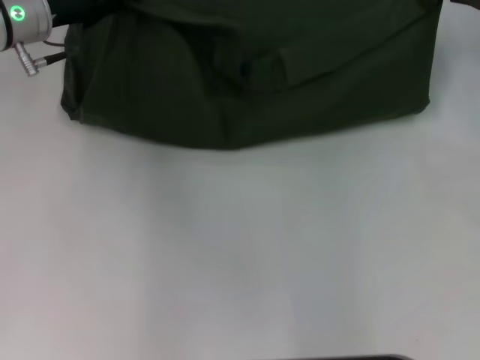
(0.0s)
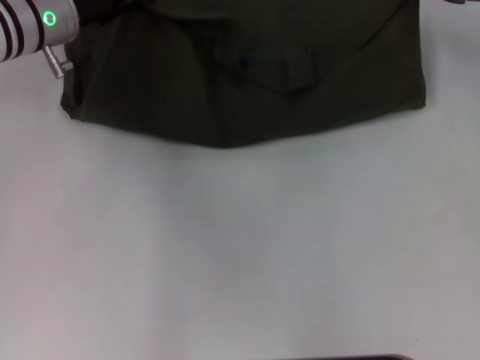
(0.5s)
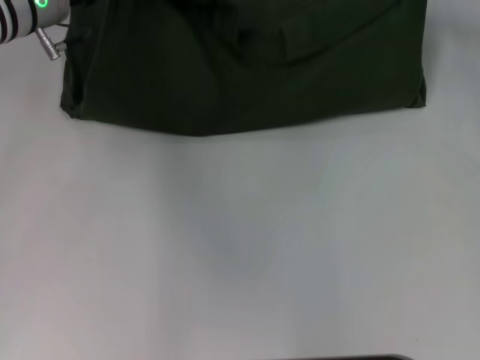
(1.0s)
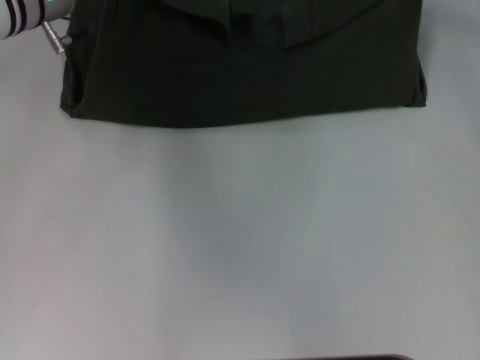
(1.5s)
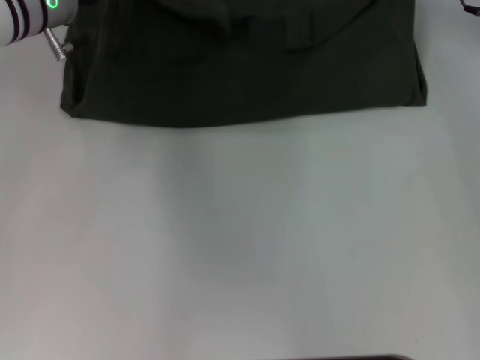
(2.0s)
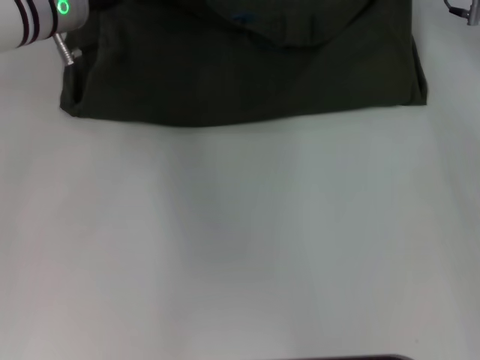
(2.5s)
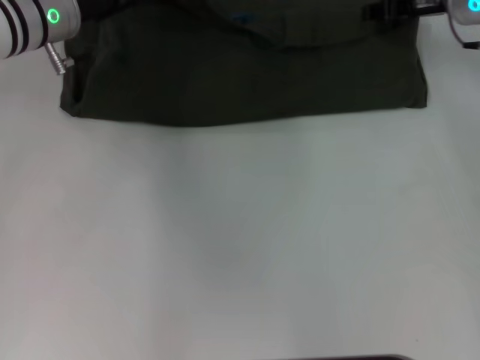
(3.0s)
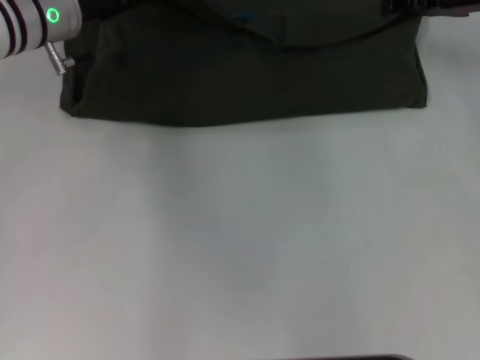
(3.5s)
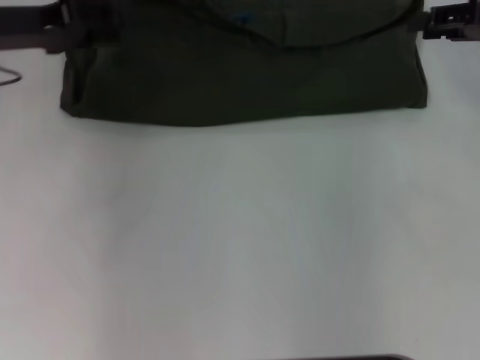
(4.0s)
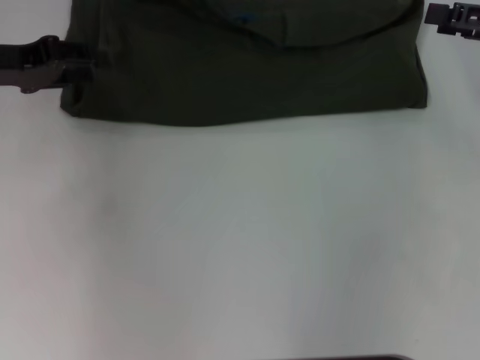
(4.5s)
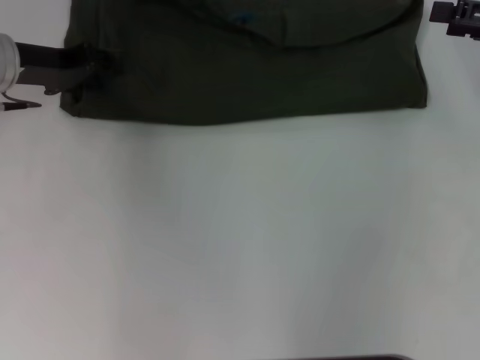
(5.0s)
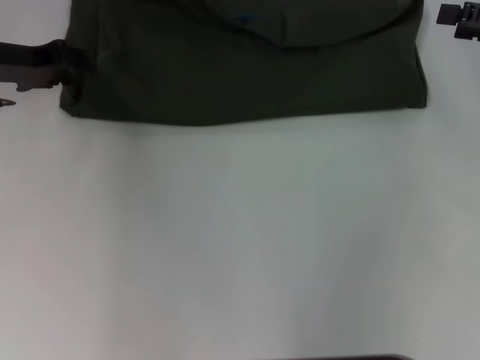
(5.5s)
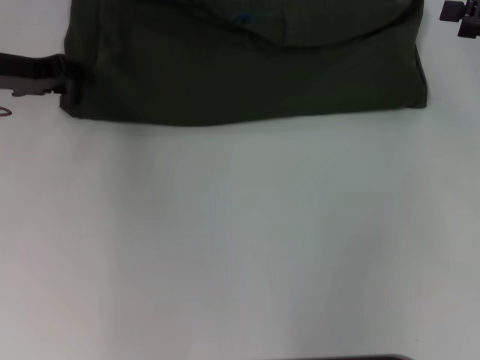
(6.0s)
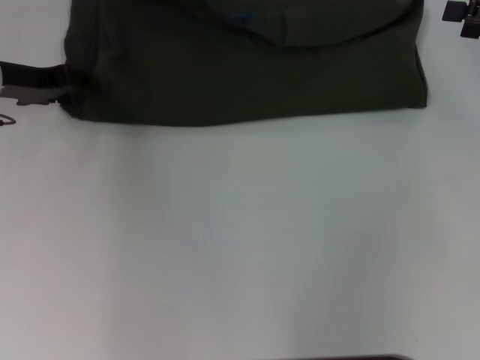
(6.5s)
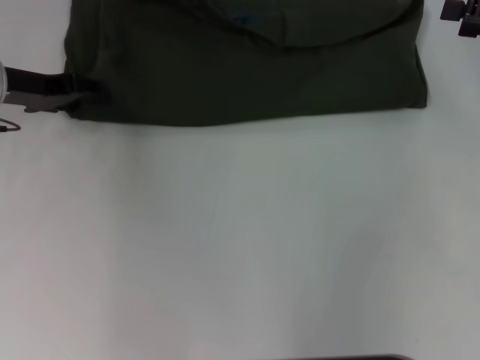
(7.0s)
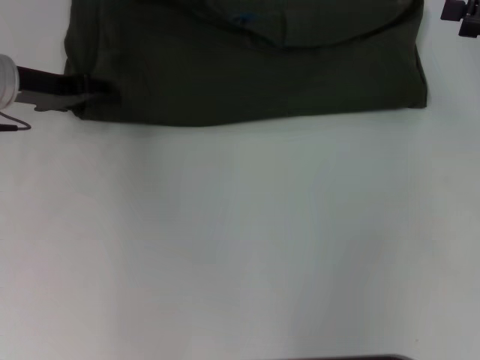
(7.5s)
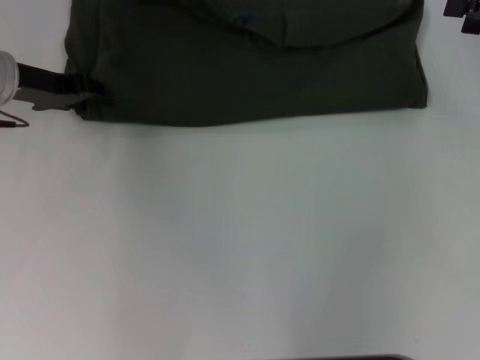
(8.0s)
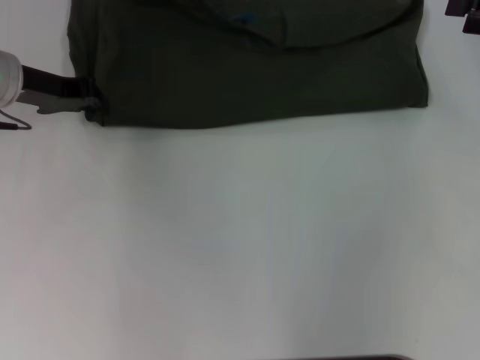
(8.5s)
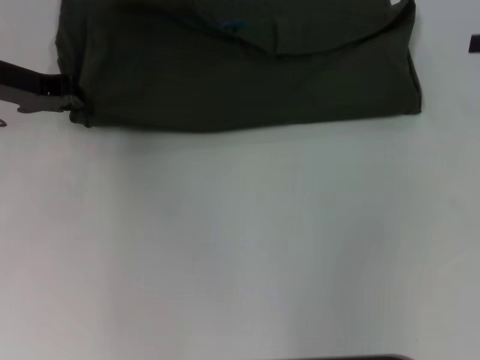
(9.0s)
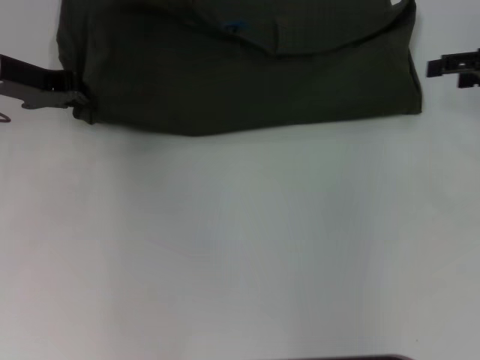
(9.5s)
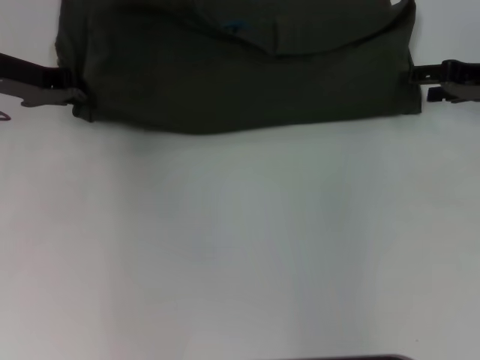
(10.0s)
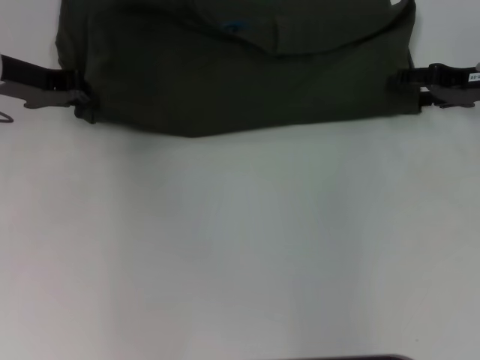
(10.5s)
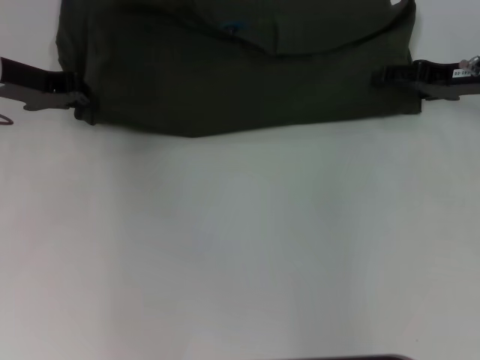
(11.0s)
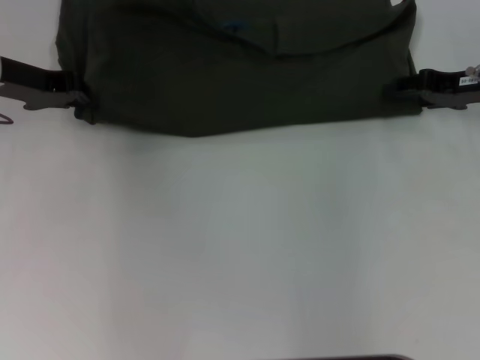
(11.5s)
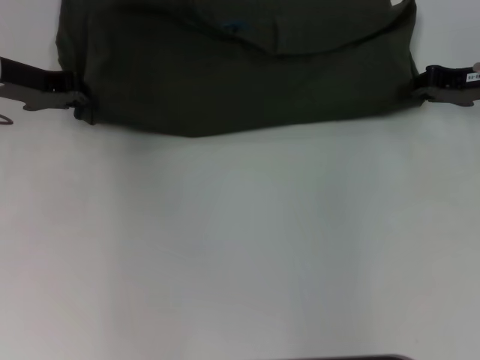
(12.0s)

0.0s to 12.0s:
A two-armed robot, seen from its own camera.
Step, 0.0s to 3.5s: Fold the clothes with your left hand.
Step, 0.0s to 3.5s: Fold the clothes with your right hand.
0.0s to 2.0s: The right gripper heads to the left and forward, covering about 10 cm.
2.0s to 4.0s: The right gripper travels backward and to the right by roughly 15 cm, and opens up, while the left gripper is displaced to the left and backward by approximately 10 cm, and opens.
4.0s to 6.0s: The left gripper moves about 5 cm; the right gripper opens up.
6.0s to 8.0s: The grippers make only small movements.
8.0s to 10.0s: The right gripper goes approximately 5 cm downward. Meanwhile the left gripper closes up.
10.0s to 12.0s: The right gripper closes.

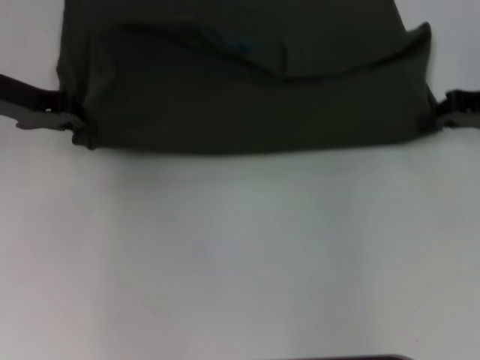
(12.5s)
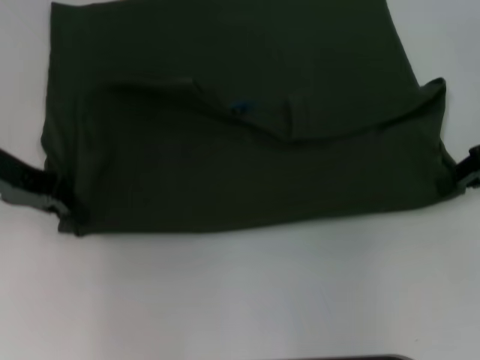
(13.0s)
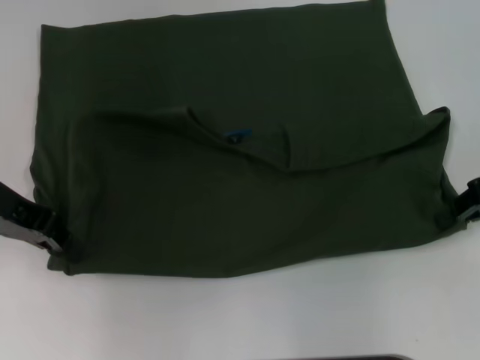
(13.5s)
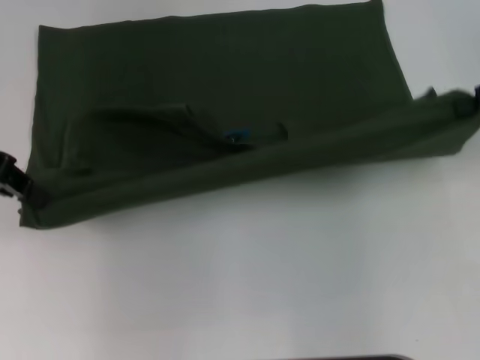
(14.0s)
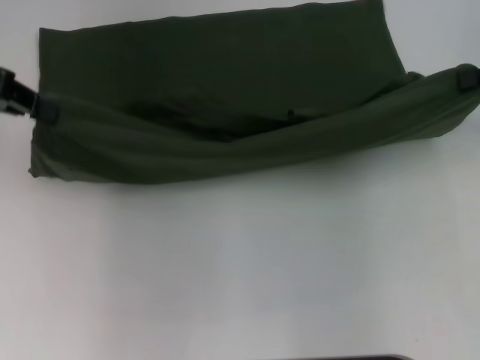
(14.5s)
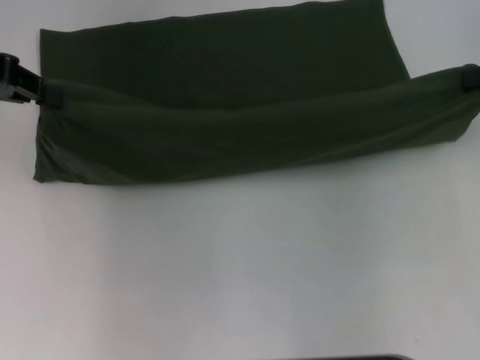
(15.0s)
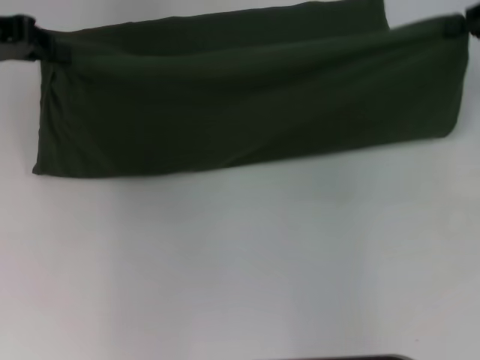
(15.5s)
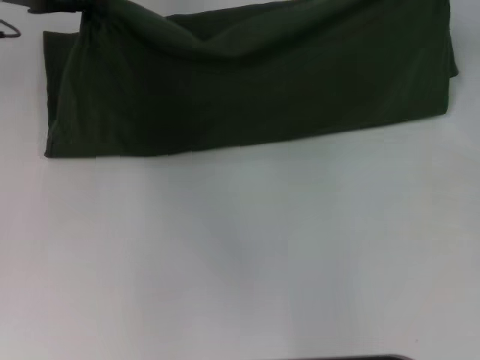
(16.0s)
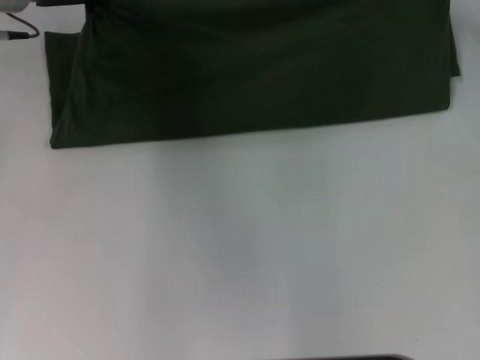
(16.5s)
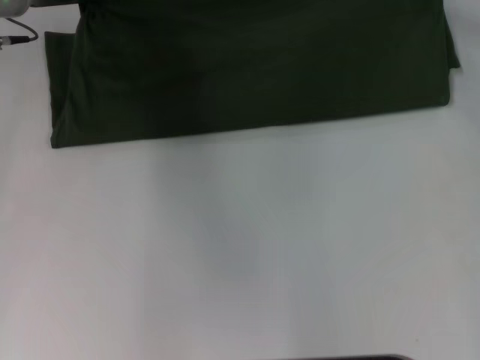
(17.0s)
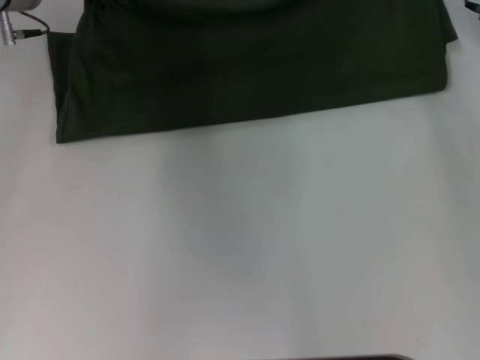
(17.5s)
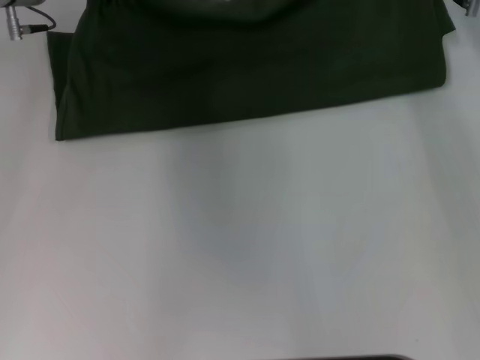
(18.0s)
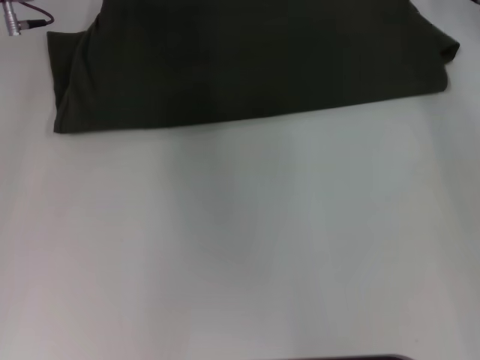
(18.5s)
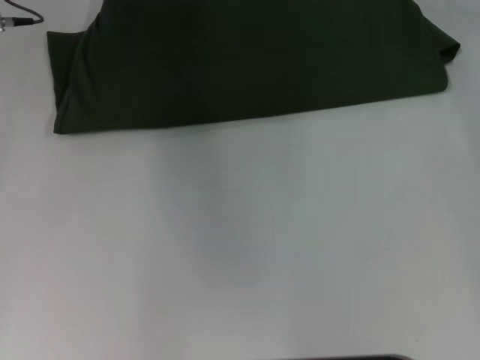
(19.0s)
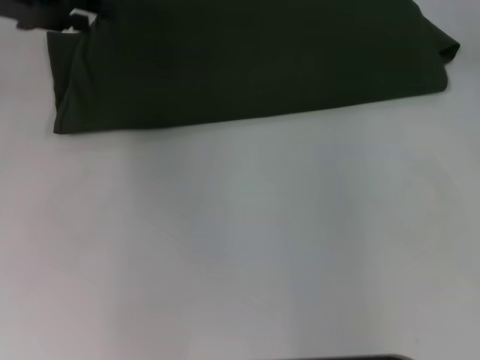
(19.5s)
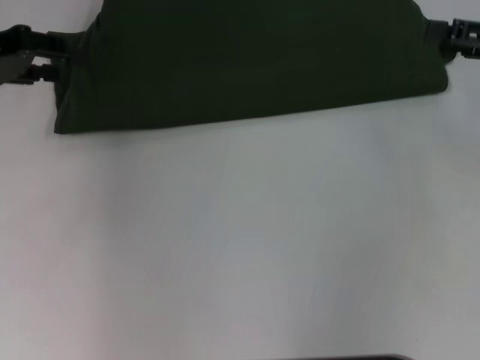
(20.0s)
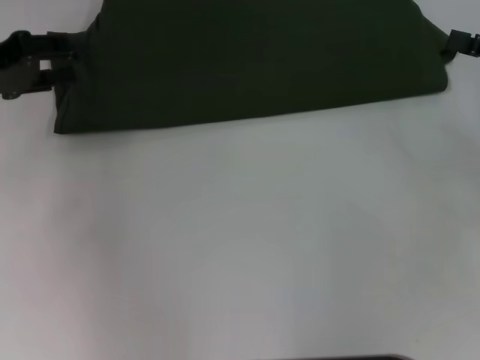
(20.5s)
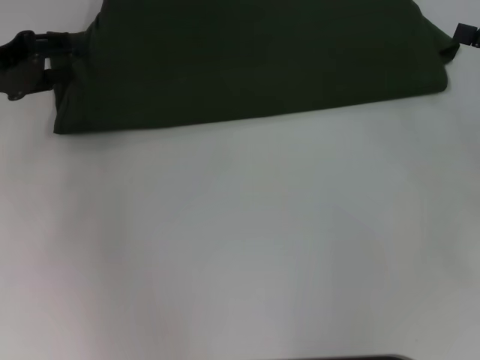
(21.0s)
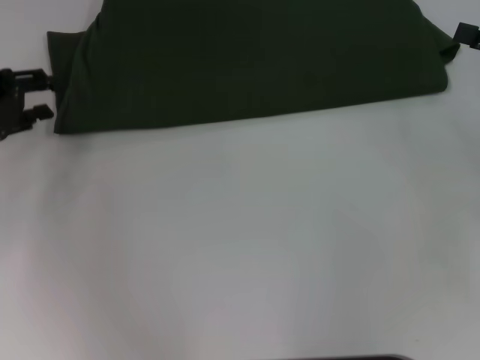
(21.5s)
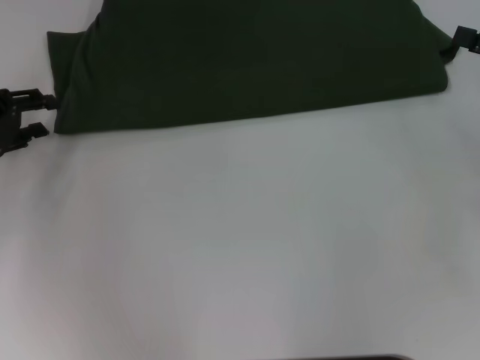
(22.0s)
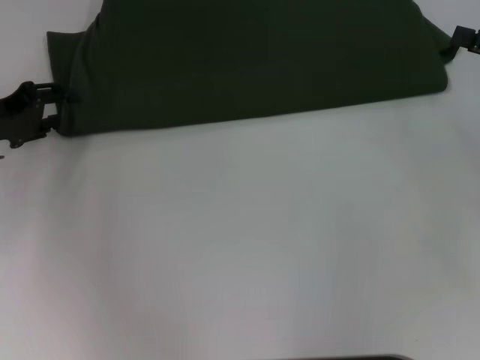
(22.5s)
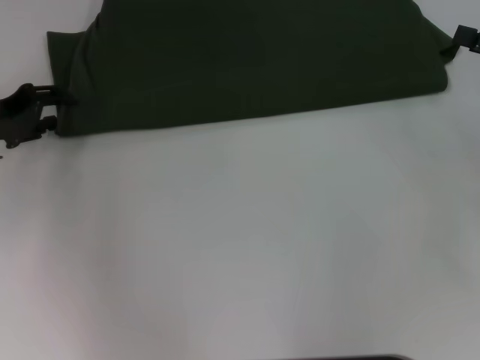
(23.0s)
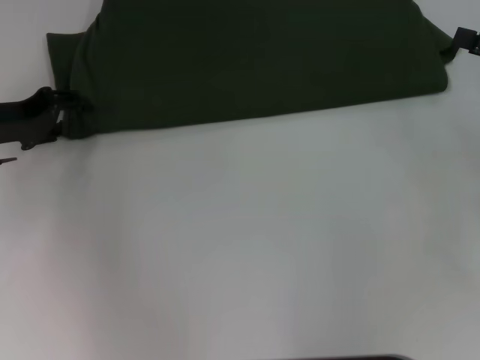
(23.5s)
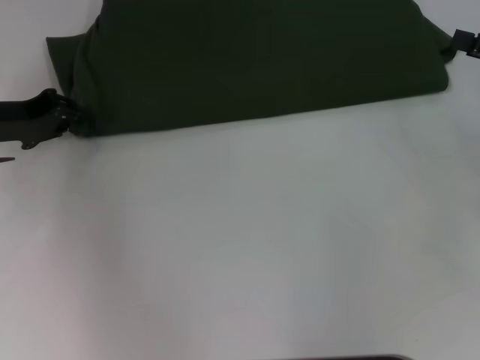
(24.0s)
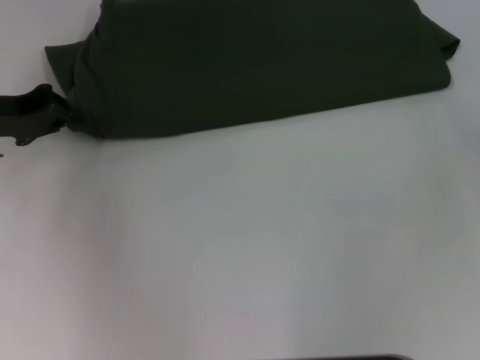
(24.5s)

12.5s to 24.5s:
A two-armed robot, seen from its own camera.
Step, 13.5s to 19.0s: Fold the clothes with your left hand.
Step, 13.5s to 19.0s: Fold the clothes with your right hand.
12.5s to 14.5s: The grippers both shift upward by roughly 10 cm.
14.5s to 16.5s: The left gripper travels forward, to the right and downward by about 15 cm. The right gripper moves forward and downward, approximately 10 cm.
16.5s to 18.5s: The right gripper is displaced to the left by roughly 5 cm.
18.5s to 20.5s: The left gripper heads backward and to the left, covering some 15 cm, and opens; the right gripper is displaced backward and to the right by about 20 cm, and opens.
20.5s to 22.5s: The left gripper goes some 5 cm downward.
22.5s to 24.5s: The right gripper shifts by some 5 cm. The left gripper closes.

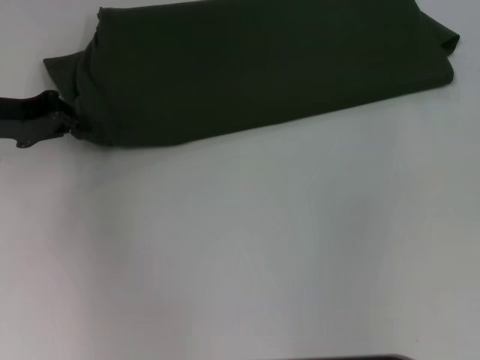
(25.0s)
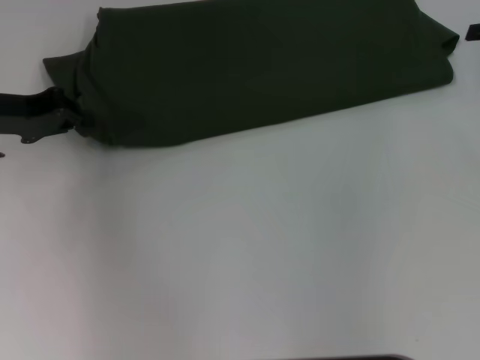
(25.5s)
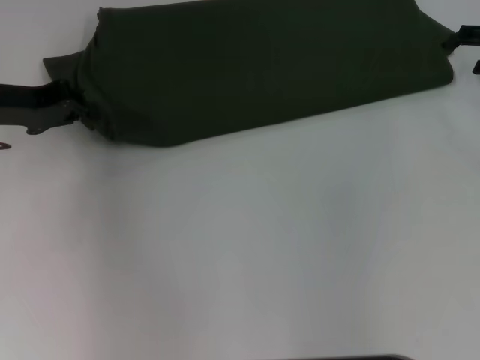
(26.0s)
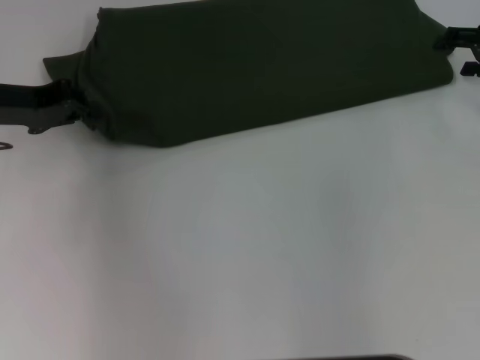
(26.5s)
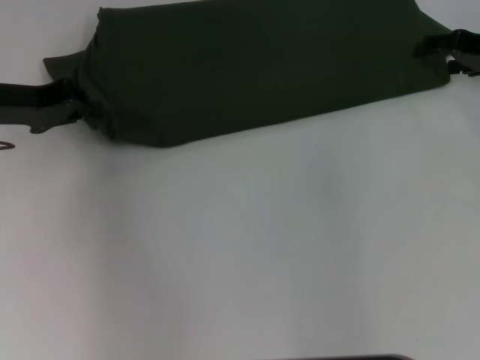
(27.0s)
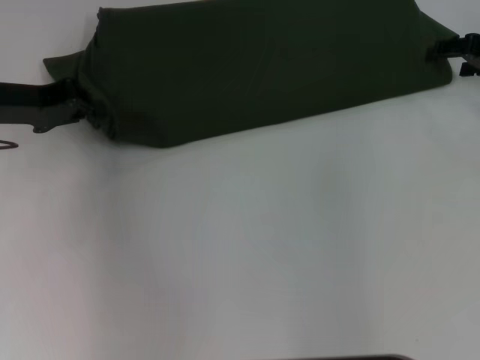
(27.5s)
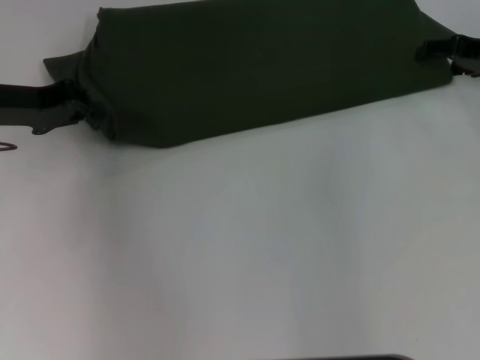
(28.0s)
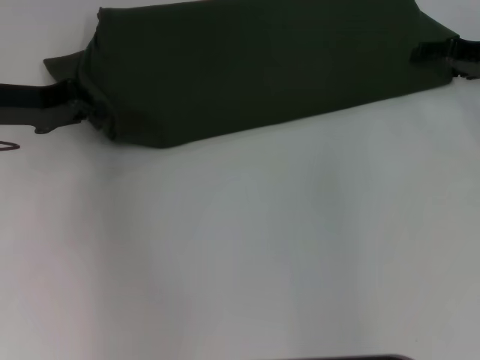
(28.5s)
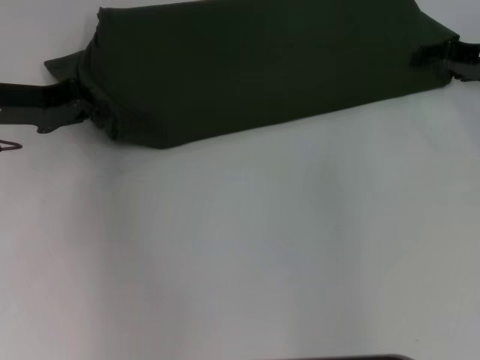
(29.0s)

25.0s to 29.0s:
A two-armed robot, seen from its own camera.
25.0s to 27.0s: The right gripper heads to the left and forward, covering approximately 10 cm.
